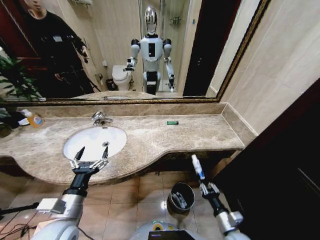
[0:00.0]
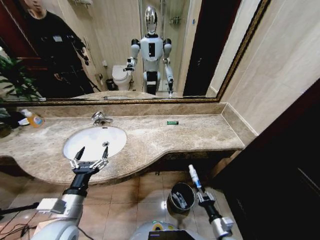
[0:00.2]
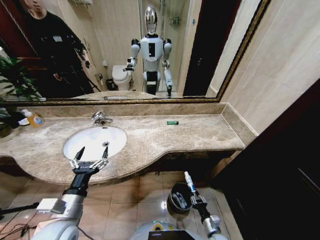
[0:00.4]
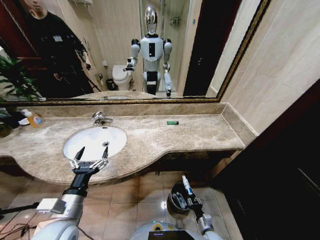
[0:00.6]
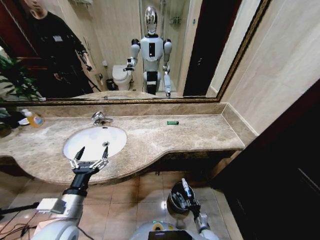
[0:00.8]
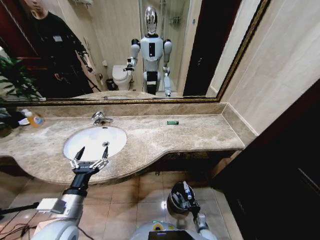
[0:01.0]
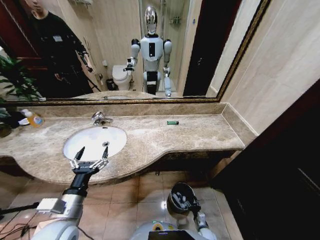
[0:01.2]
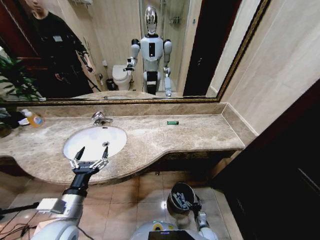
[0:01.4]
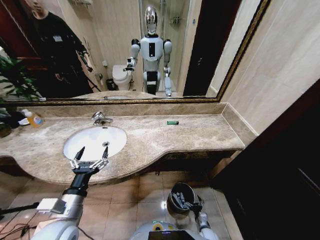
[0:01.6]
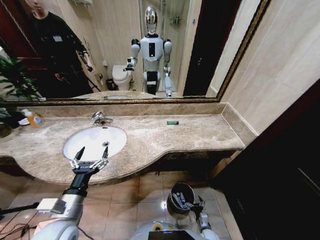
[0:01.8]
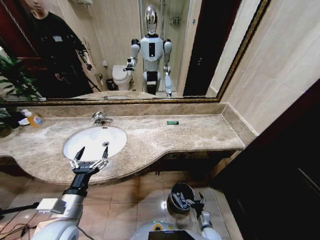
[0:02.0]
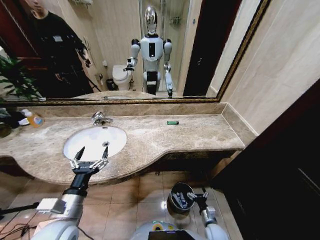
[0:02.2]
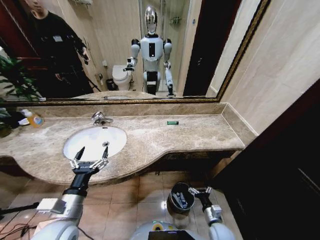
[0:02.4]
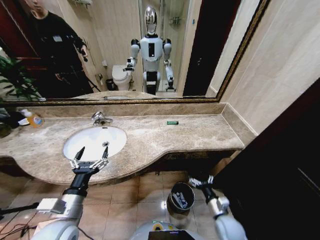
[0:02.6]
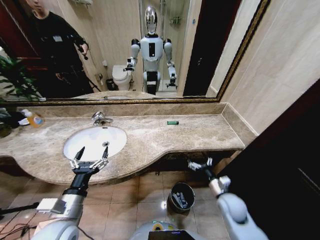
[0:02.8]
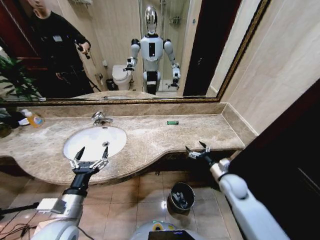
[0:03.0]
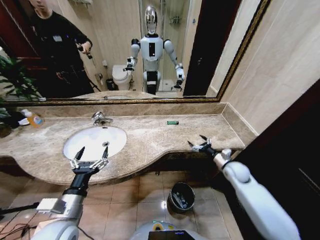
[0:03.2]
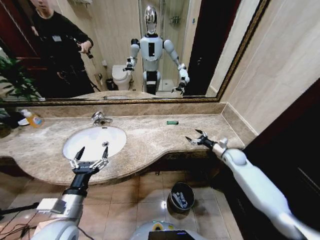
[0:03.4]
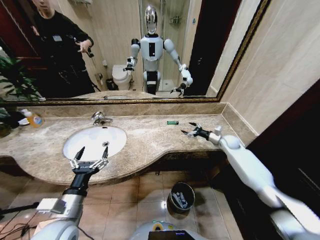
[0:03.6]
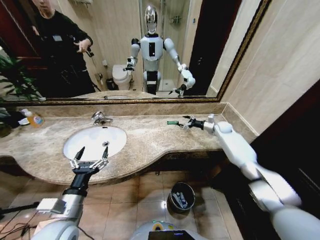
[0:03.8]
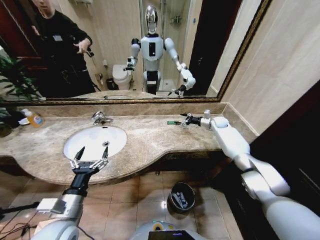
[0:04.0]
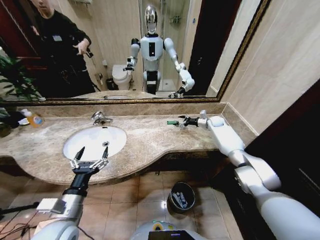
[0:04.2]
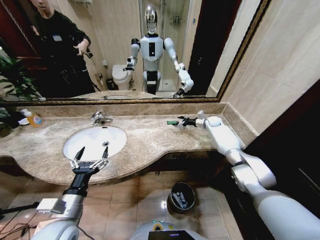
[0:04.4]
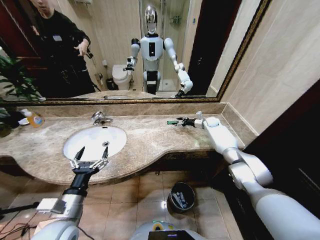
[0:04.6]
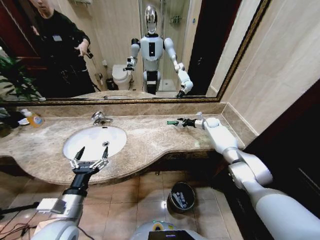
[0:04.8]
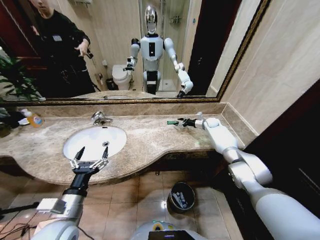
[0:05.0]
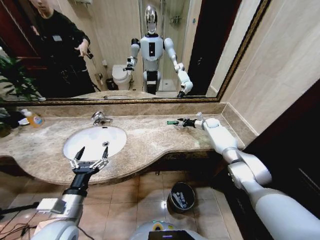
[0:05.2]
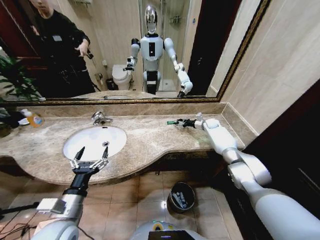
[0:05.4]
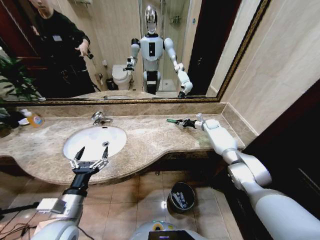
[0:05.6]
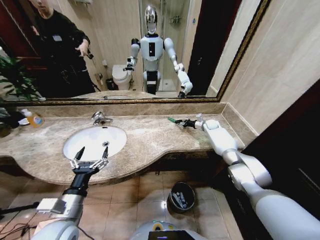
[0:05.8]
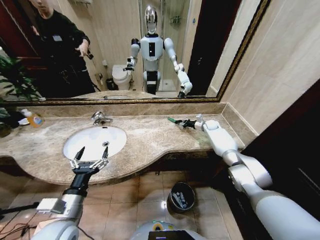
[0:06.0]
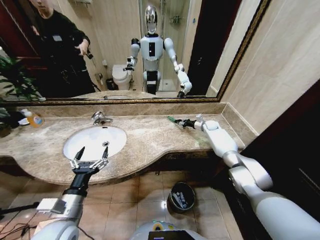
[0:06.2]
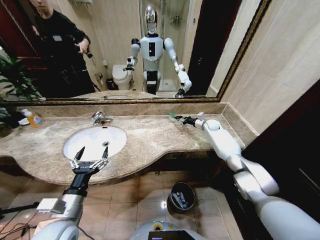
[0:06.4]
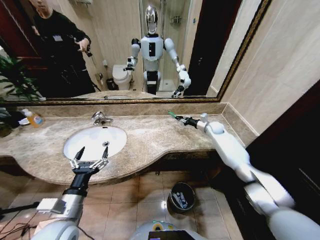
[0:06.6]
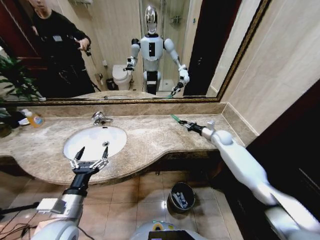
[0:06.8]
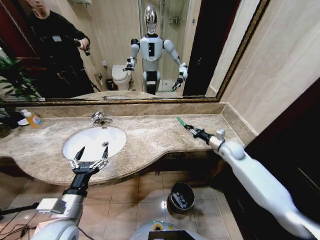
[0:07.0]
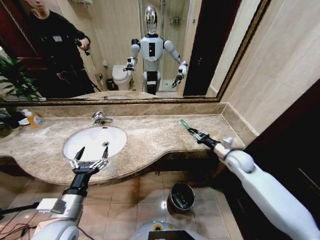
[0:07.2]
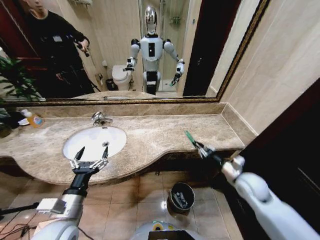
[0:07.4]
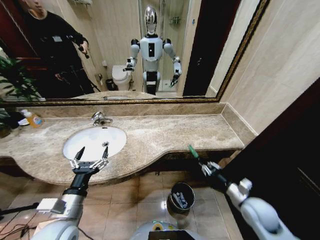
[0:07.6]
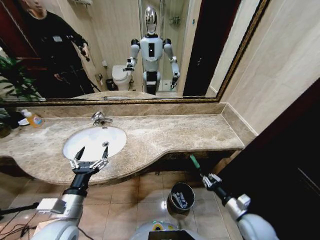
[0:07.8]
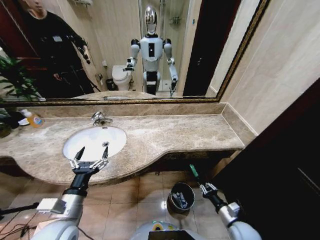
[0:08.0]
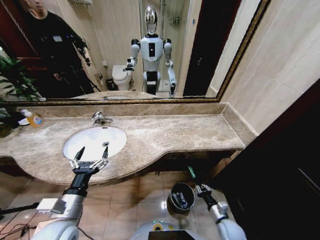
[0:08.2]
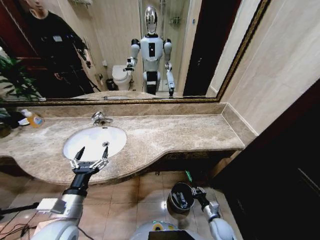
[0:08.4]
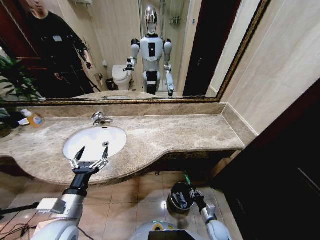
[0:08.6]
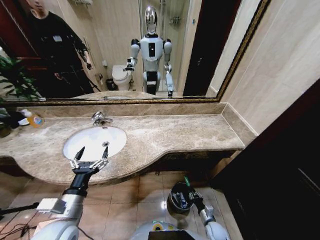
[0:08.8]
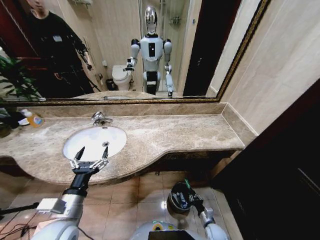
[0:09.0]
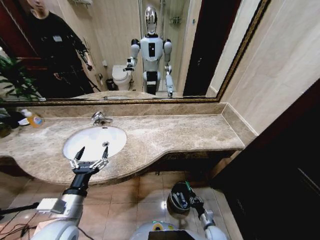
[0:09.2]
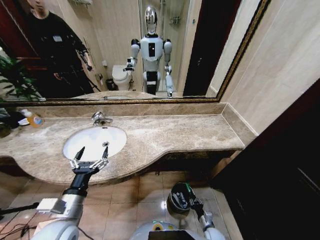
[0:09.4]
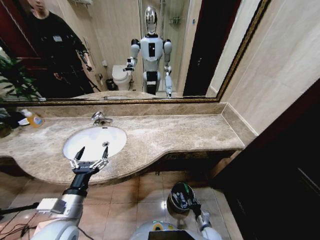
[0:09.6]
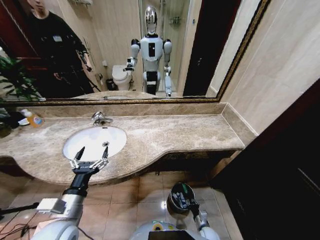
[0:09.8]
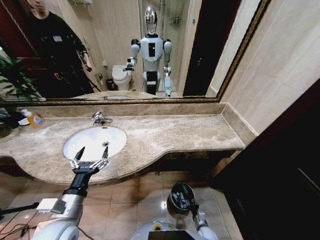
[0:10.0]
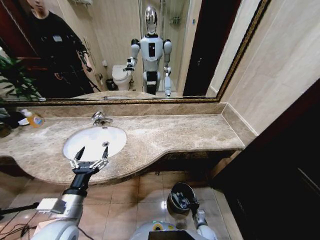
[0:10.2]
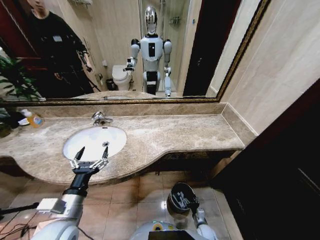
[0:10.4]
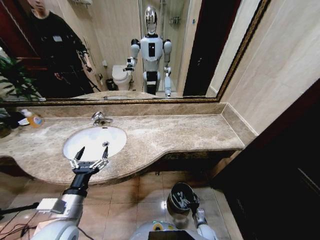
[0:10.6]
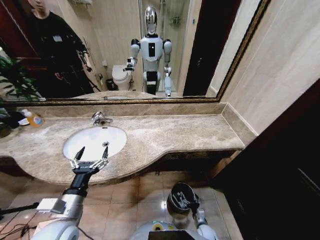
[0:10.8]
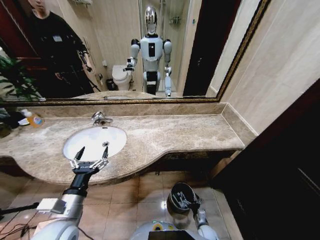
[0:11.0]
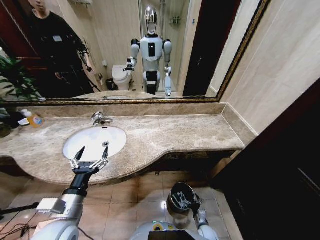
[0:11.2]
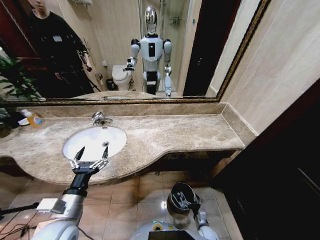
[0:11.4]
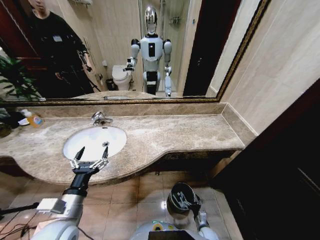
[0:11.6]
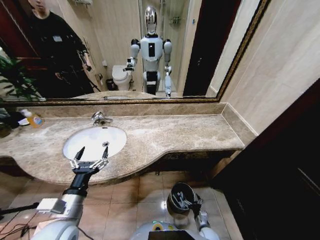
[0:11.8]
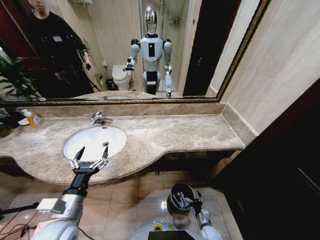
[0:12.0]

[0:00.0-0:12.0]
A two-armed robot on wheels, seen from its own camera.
Task of the whole recording: Pick up the trash from the sink and place it in the trash bin.
0:00.0 to 0:01.6: The right gripper travels downward by some 25 cm, and opens its fingers.
0:01.6 to 0:03.0: The right gripper is displaced upward and forward by some 35 cm.
0:03.0 to 0:04.4: The right gripper moves forward, approximately 35 cm.
0:04.4 to 0:06.0: The right gripper closes.
0:06.0 to 0:07.6: The right gripper heads backward, covering approximately 50 cm.
0:07.6 to 0:09.0: The right gripper goes approximately 30 cm downward.
0:09.0 to 0:10.4: The right gripper changes place by some 5 cm, and opens its fingers.
0:10.4 to 0:12.0: There are only small adjustments of the grippers.

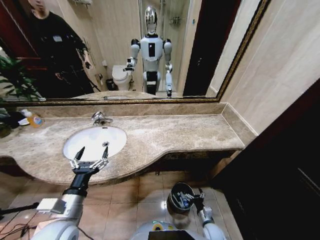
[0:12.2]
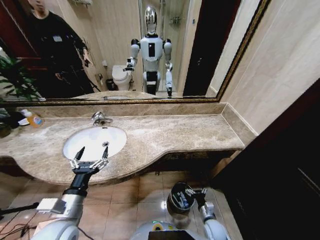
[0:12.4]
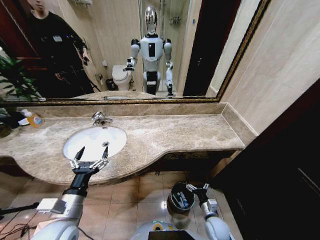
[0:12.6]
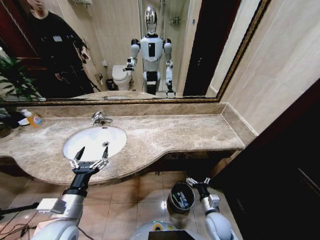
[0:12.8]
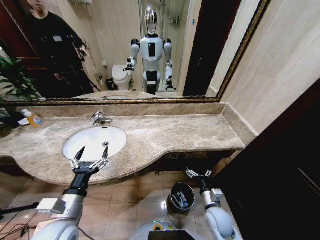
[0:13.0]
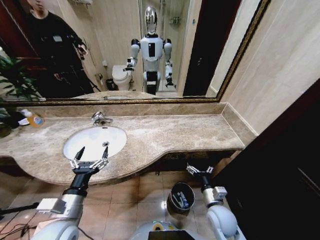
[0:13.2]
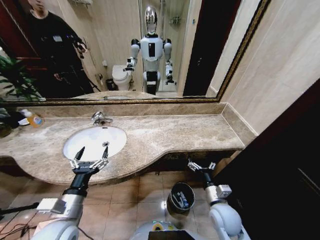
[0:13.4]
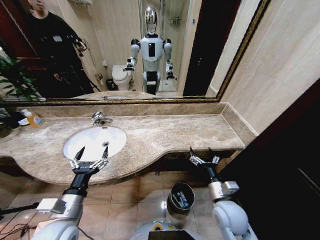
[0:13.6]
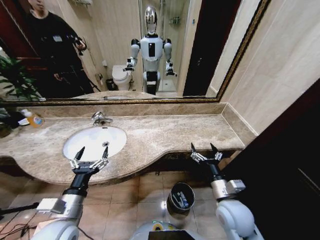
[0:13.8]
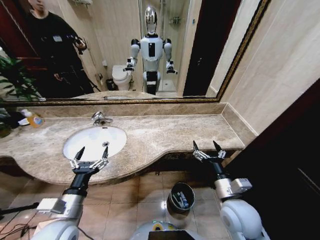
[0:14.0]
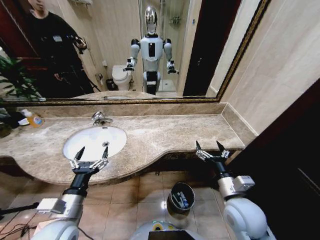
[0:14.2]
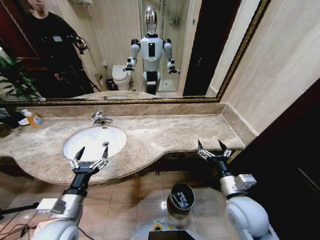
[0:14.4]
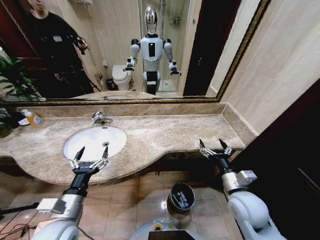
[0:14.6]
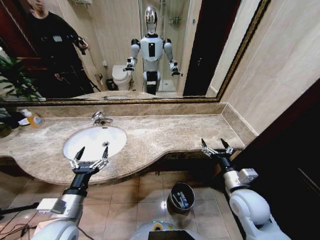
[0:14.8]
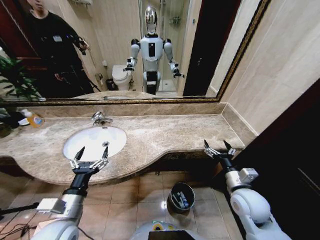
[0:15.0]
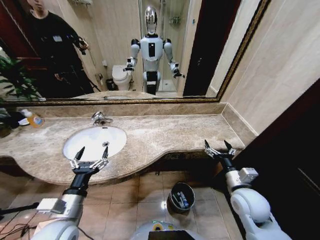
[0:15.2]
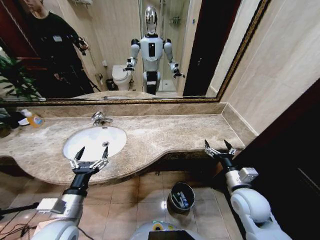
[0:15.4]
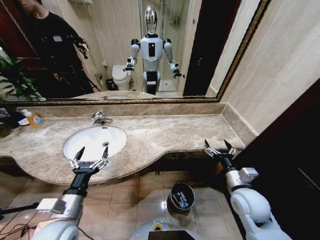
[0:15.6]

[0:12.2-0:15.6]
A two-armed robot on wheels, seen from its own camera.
Task of the whole recording: Pick up the trash from the sink and place it in the trash bin.
0:12.2 to 0:13.8: The right gripper goes some 30 cm upward.
0:13.8 to 0:15.6: The right gripper is displaced to the right by about 5 cm.

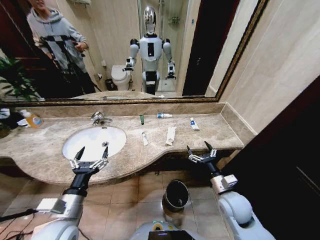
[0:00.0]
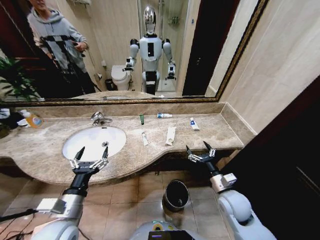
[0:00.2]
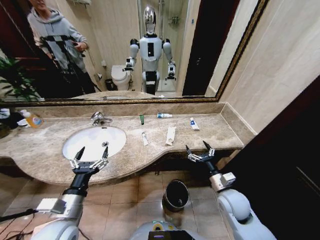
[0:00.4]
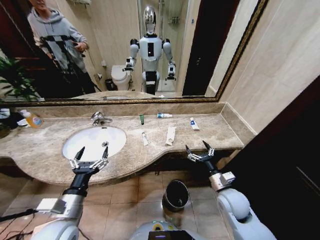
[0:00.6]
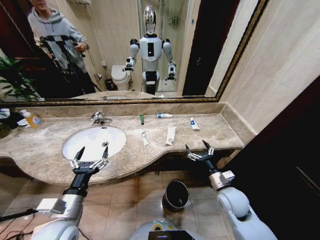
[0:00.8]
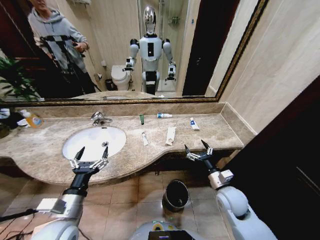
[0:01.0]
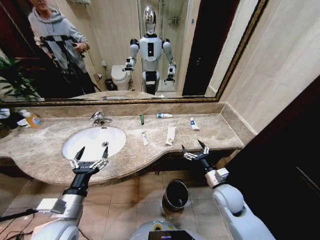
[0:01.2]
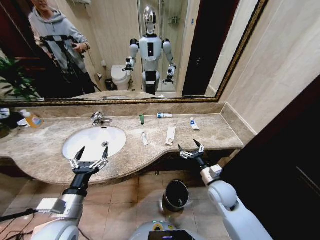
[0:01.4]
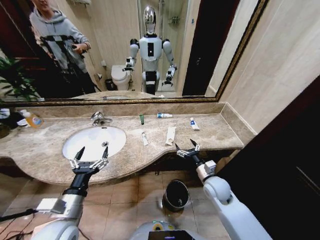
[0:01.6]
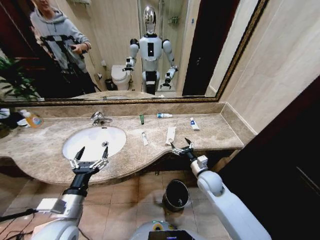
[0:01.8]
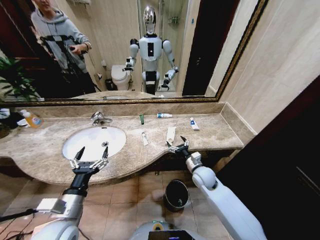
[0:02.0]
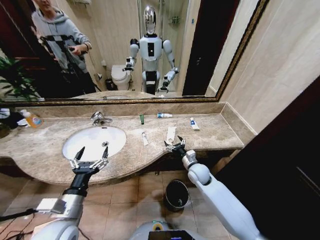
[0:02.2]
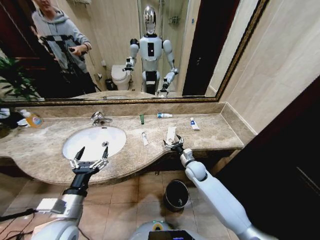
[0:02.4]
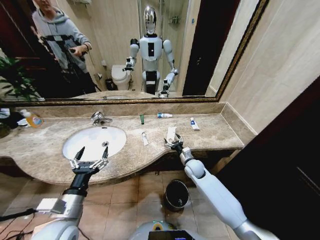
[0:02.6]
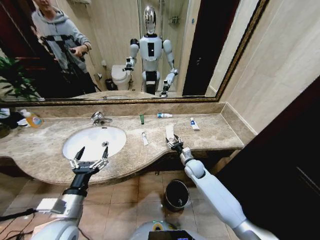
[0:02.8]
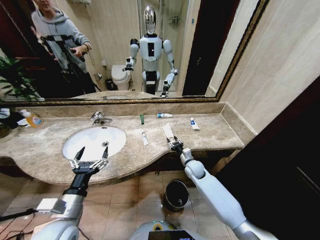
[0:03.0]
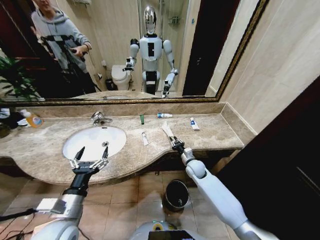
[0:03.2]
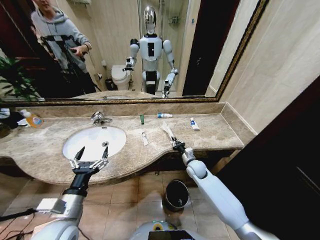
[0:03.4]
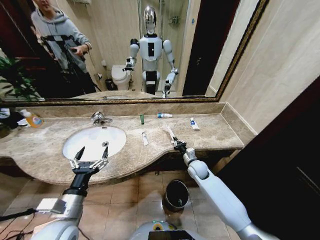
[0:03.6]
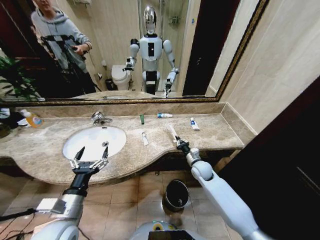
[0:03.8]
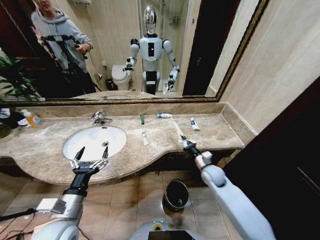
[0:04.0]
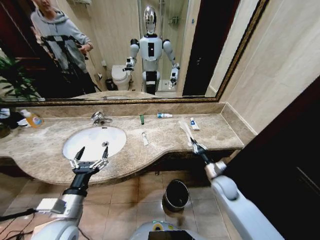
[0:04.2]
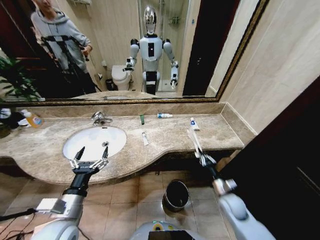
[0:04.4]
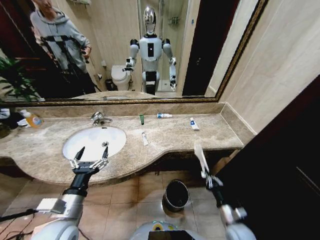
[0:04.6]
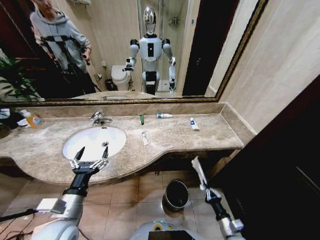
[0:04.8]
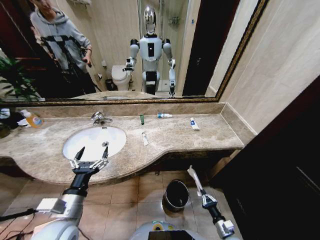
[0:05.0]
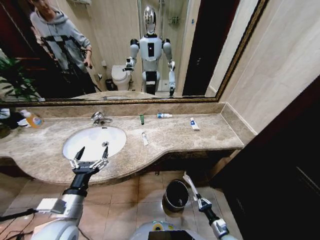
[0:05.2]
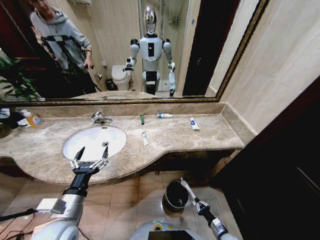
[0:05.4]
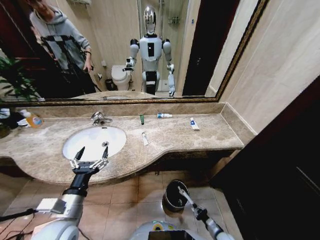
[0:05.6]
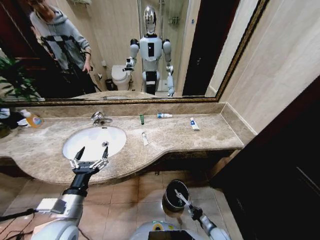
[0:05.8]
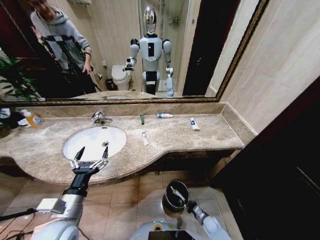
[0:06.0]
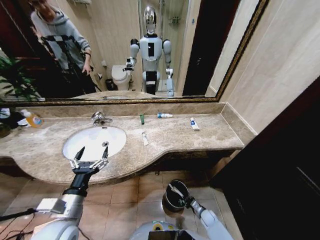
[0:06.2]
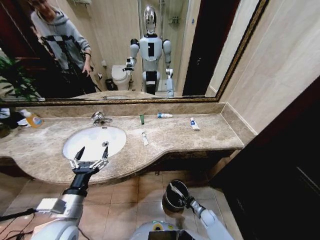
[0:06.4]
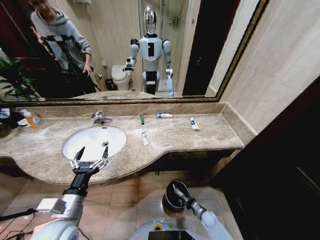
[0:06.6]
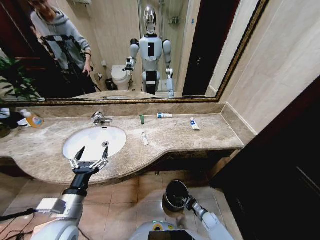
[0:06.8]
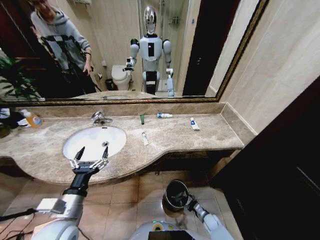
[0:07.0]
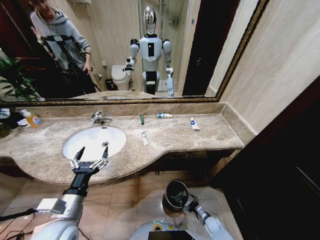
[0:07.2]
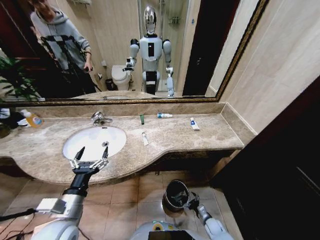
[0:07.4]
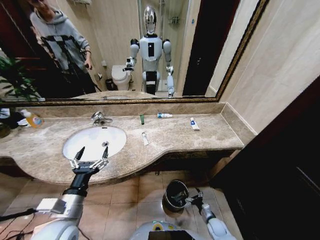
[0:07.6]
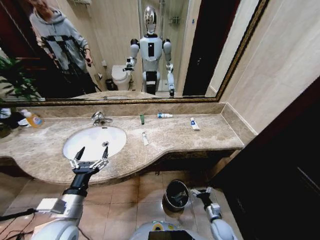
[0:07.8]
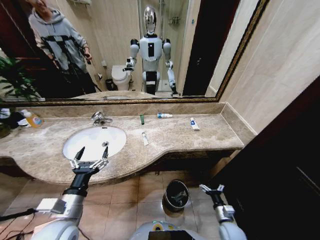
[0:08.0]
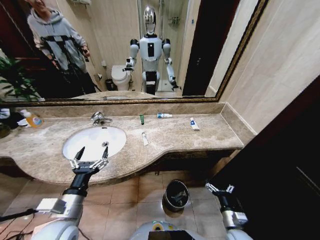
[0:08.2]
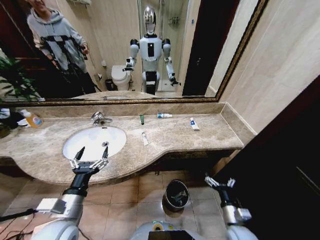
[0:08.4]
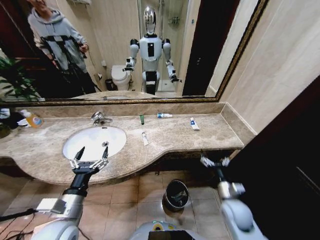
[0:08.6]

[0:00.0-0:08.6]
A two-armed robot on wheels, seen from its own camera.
Task of the whole recording: Pick up the trash from the sink and place it in the trash bin.
0:01.4 to 0:02.8: The right gripper moves forward, downward and to the left, some 15 cm.
0:02.8 to 0:04.4: The right gripper heads backward and to the right, covering roughly 20 cm, and closes.
0:04.4 to 0:05.8: The right gripper shifts some 25 cm downward.
0:05.8 to 0:07.2: The right gripper opens.
0:07.2 to 0:08.6: The right gripper heads upward, covering approximately 30 cm.
